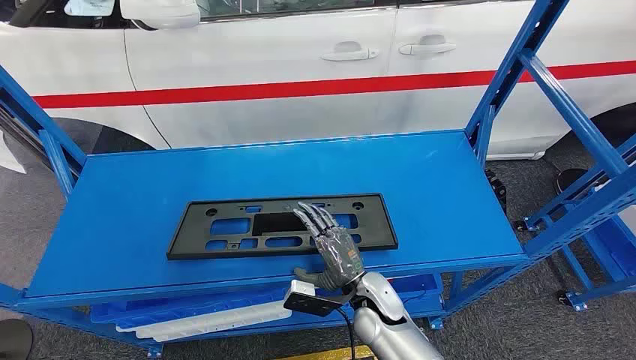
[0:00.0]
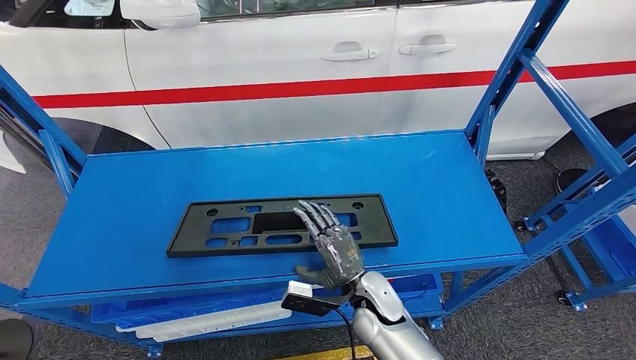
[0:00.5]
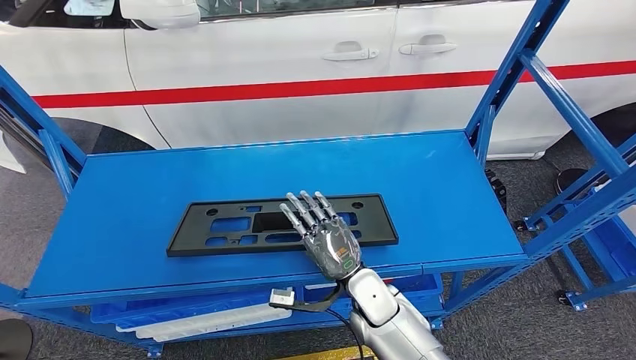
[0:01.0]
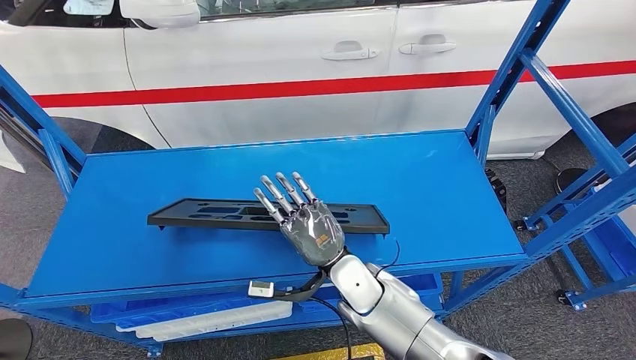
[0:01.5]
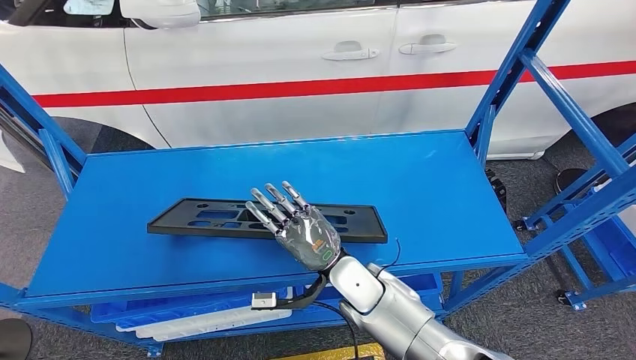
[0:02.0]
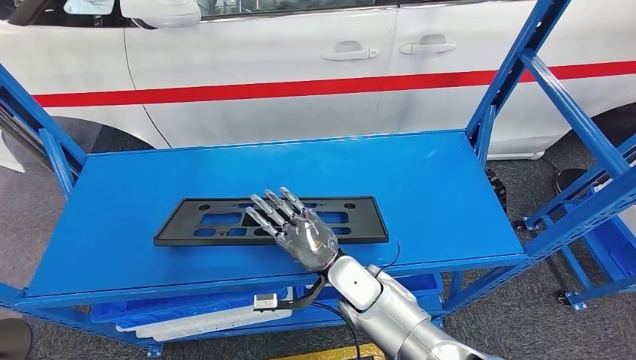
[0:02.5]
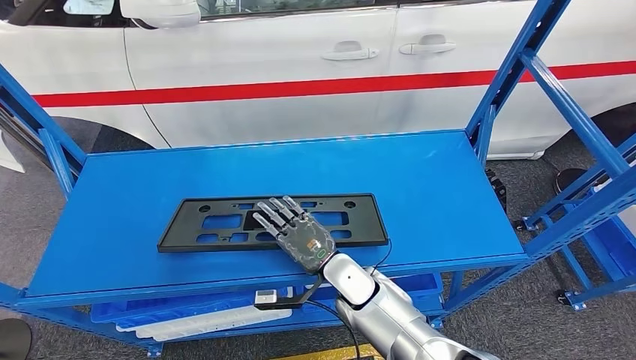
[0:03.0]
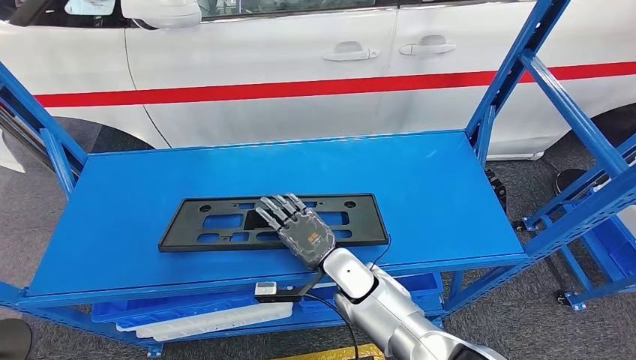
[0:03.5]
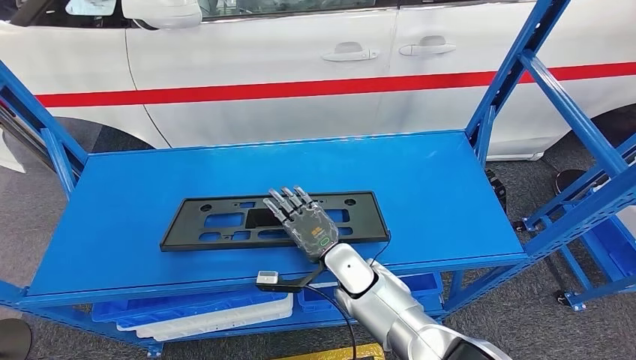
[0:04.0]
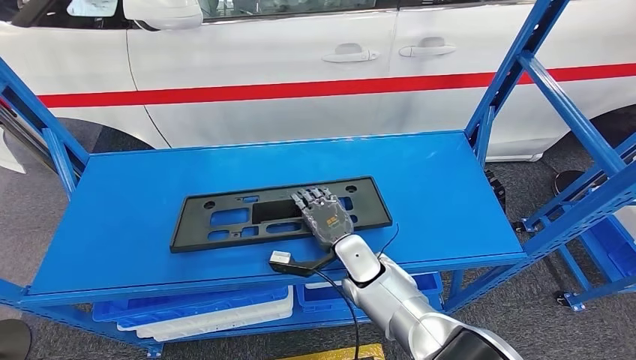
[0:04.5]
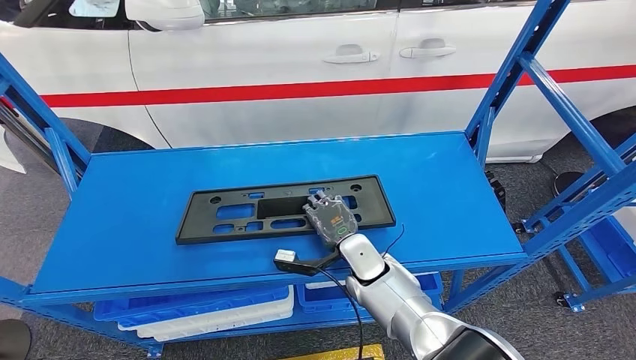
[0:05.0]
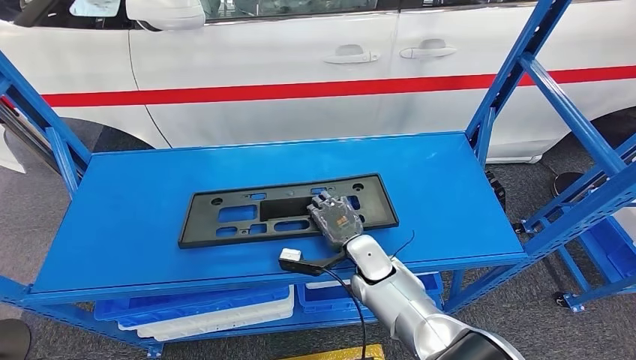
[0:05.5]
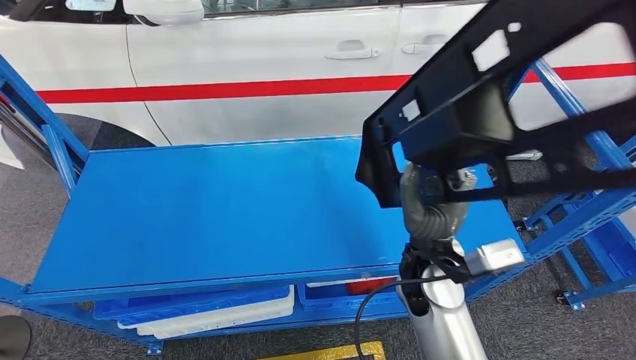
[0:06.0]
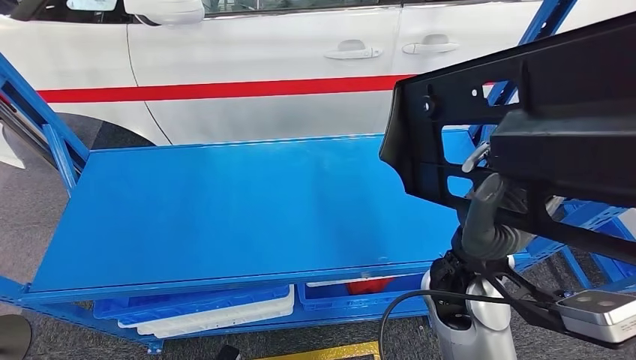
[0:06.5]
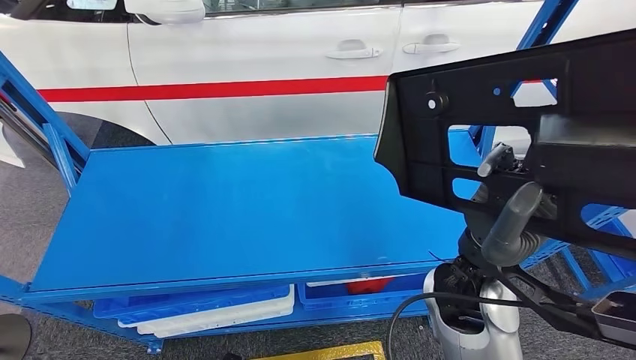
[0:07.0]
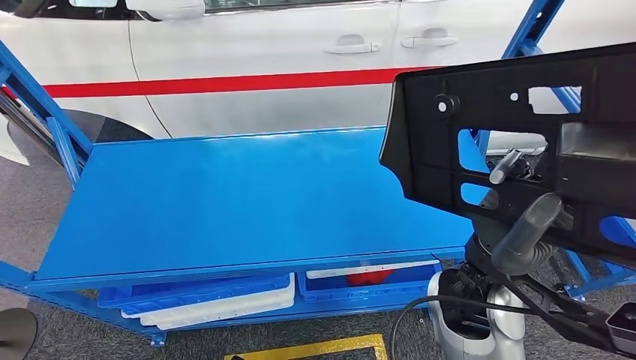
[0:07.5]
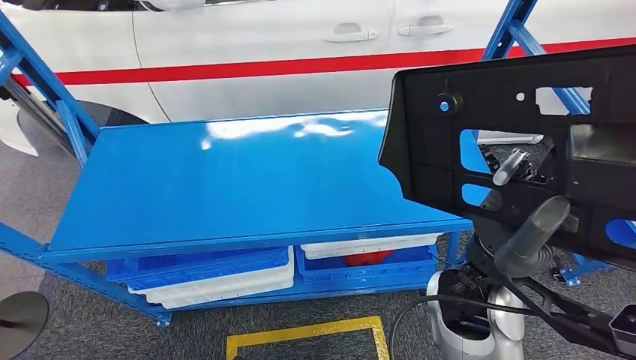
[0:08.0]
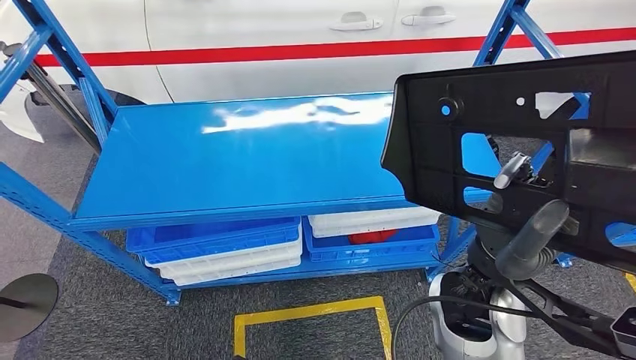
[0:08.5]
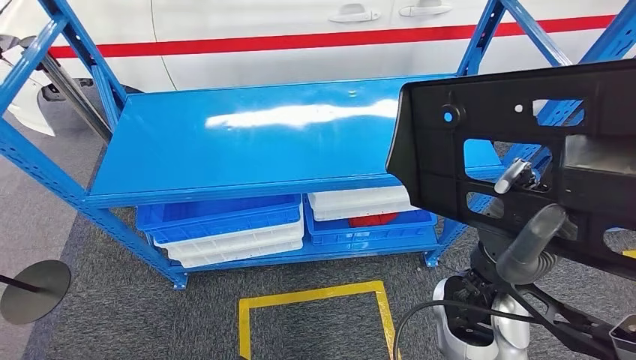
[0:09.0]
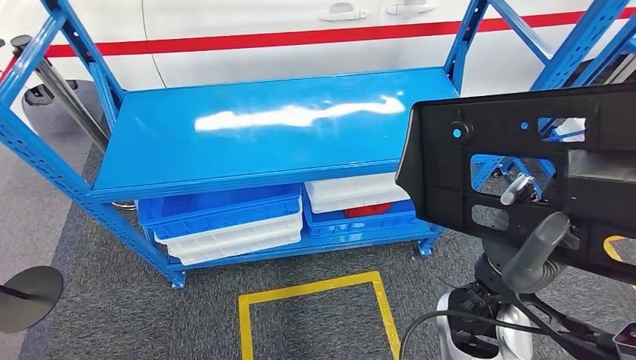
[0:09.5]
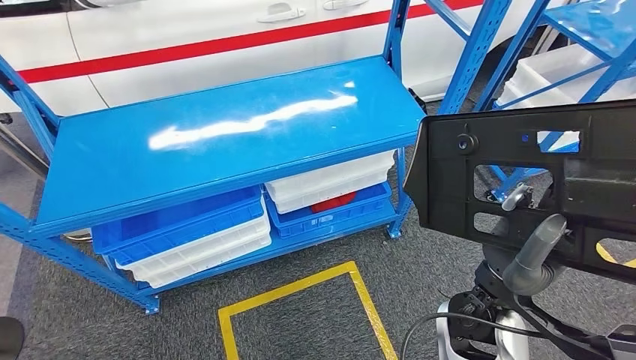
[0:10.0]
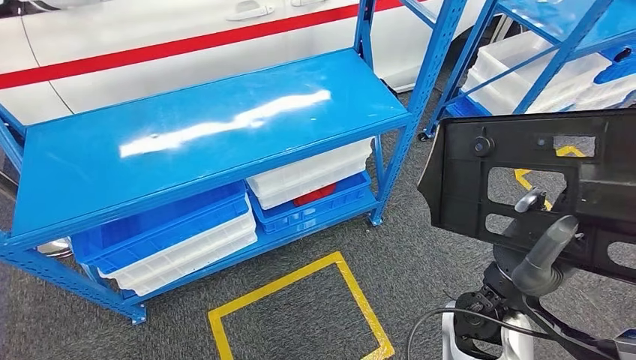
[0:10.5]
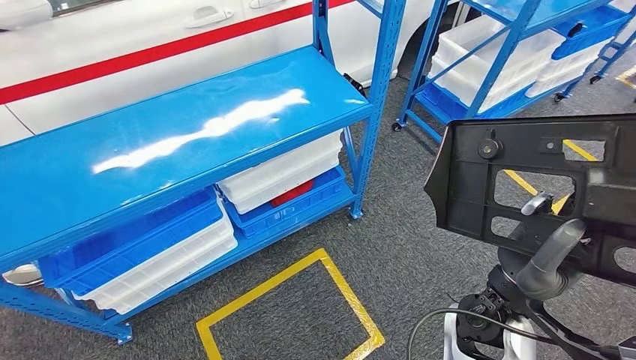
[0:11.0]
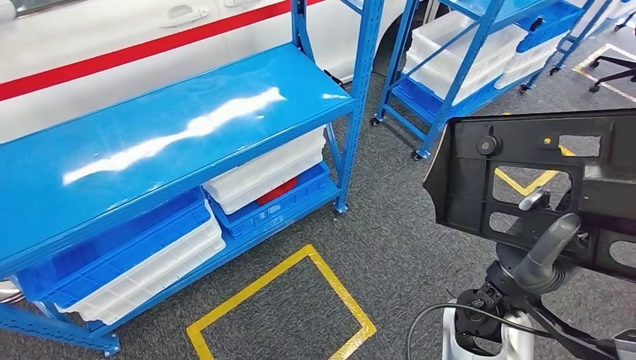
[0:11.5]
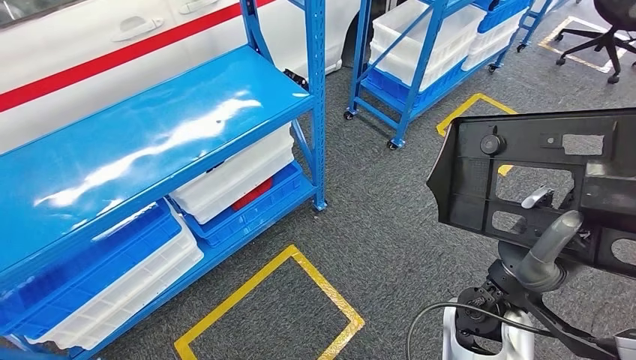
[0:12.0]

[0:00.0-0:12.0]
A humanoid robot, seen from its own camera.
Step, 0:00.0 to 0:05.5: Pick up the large material from the shelf.

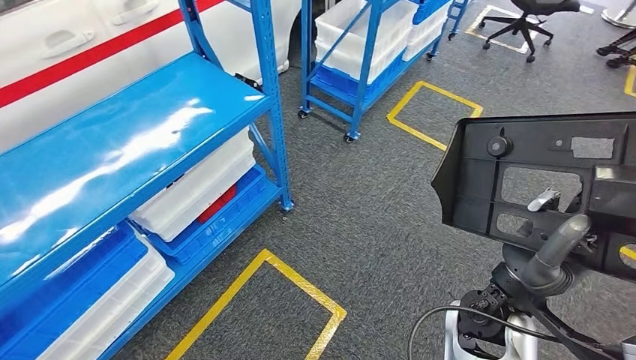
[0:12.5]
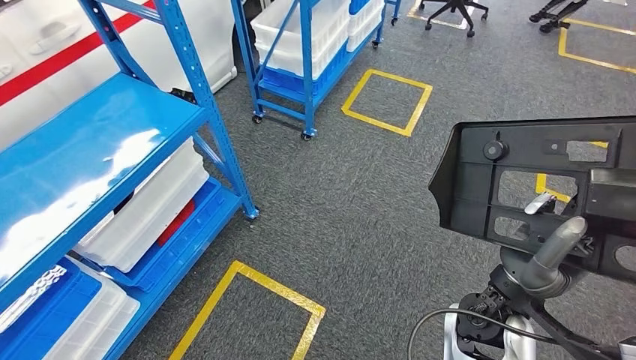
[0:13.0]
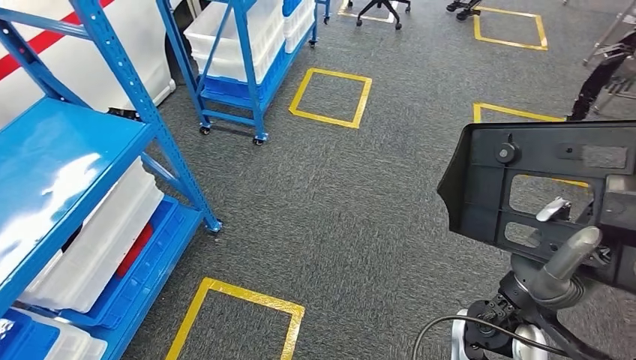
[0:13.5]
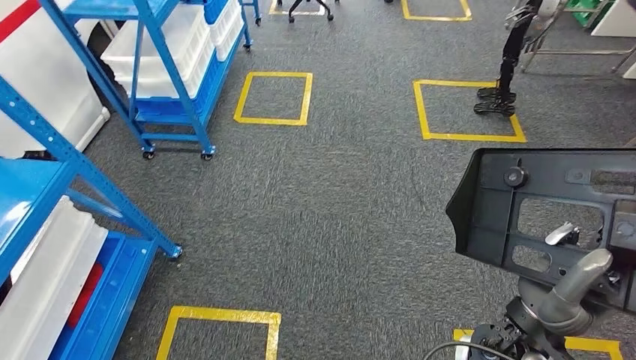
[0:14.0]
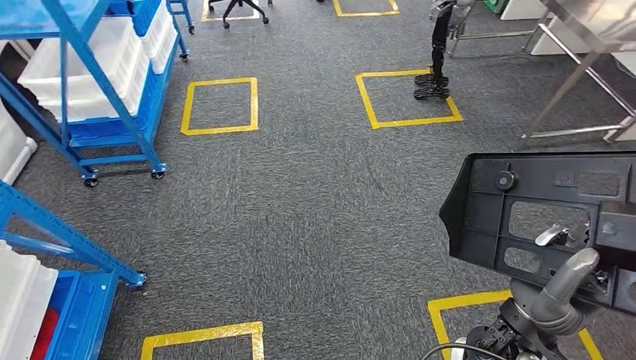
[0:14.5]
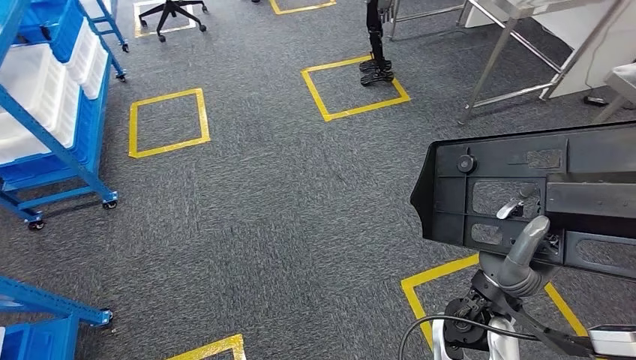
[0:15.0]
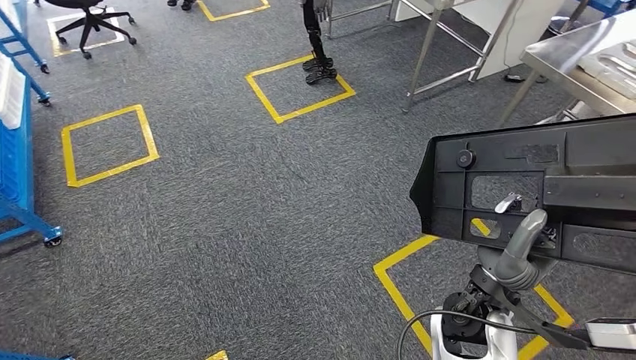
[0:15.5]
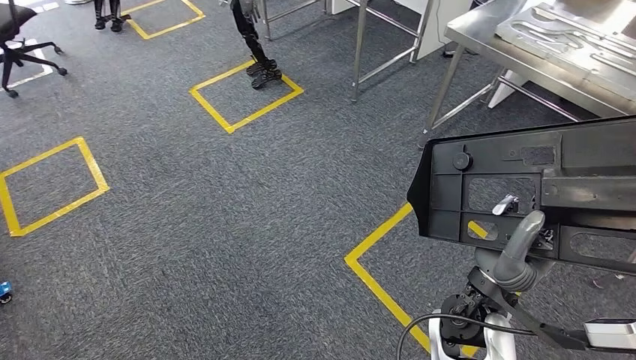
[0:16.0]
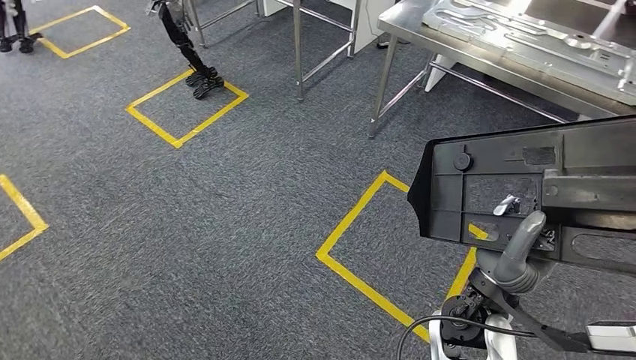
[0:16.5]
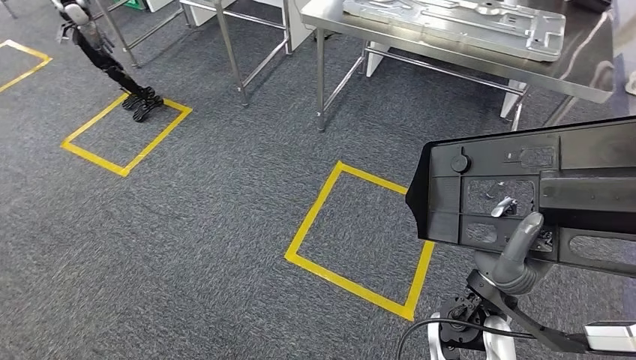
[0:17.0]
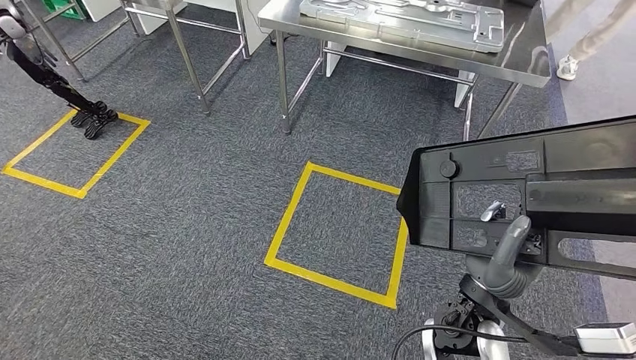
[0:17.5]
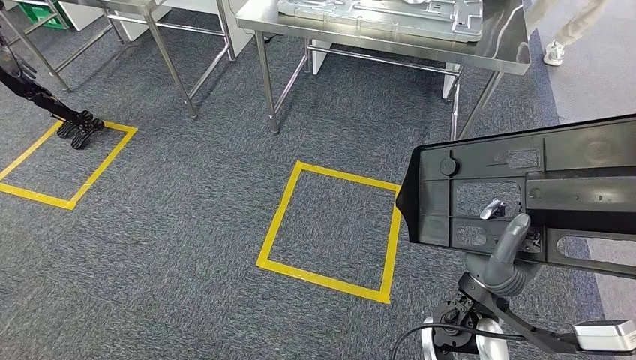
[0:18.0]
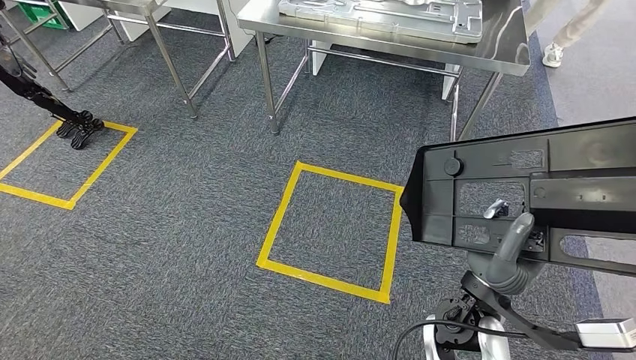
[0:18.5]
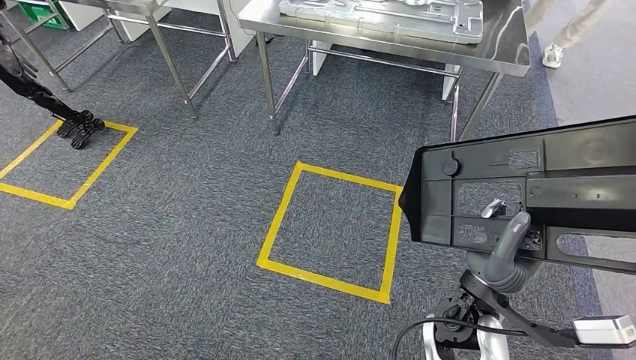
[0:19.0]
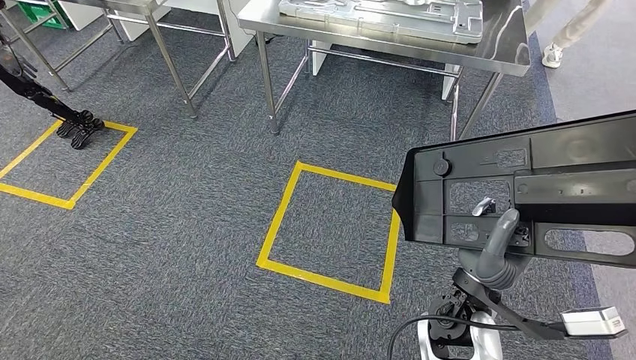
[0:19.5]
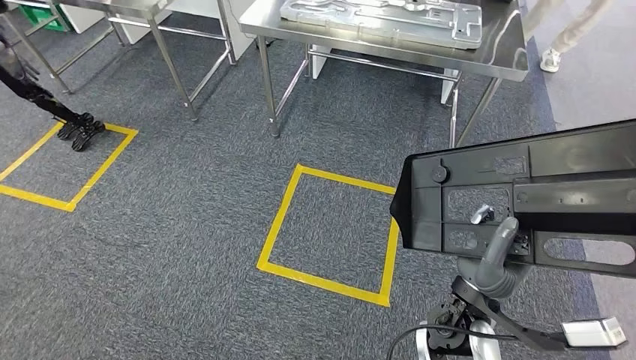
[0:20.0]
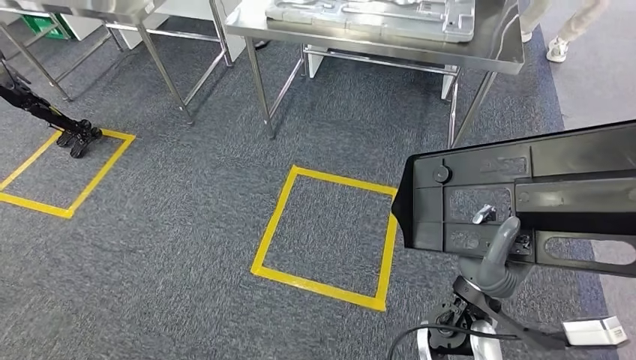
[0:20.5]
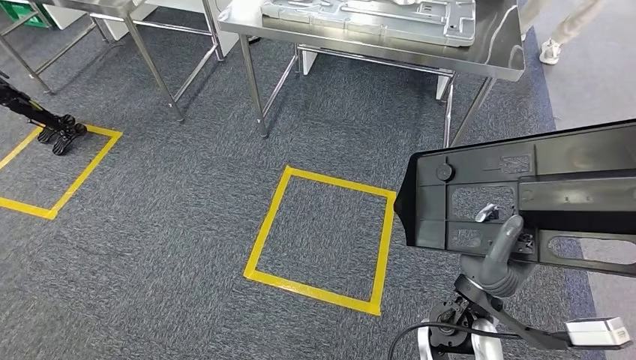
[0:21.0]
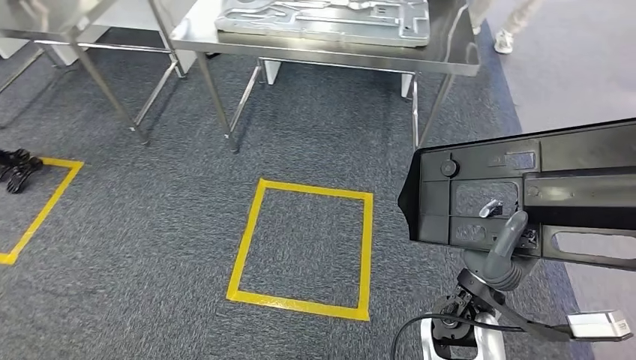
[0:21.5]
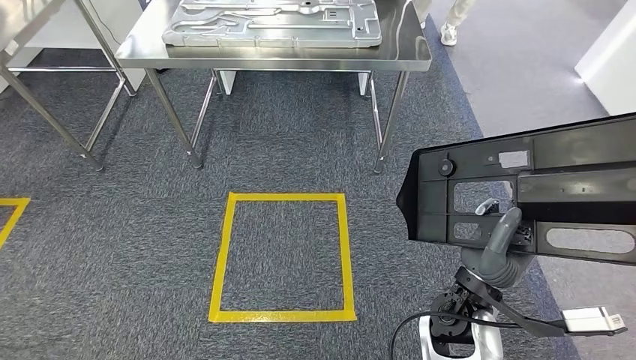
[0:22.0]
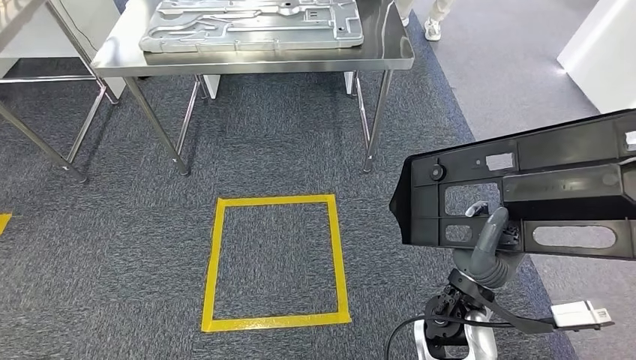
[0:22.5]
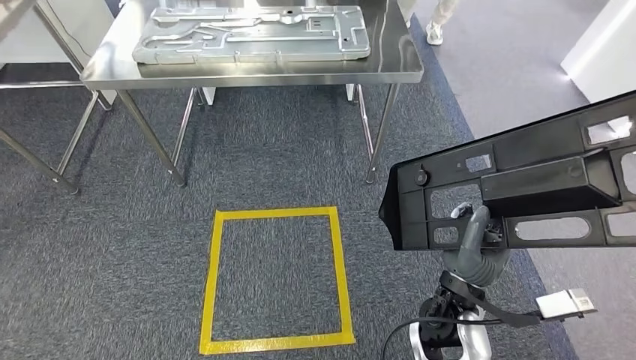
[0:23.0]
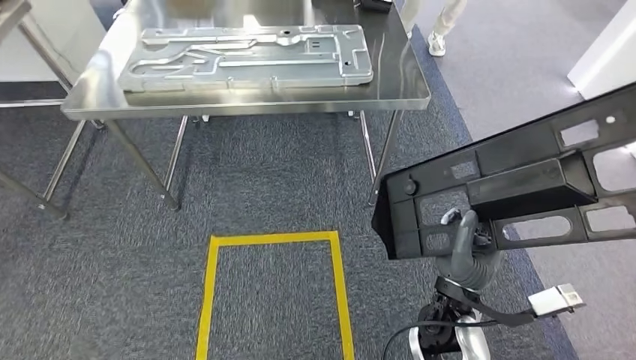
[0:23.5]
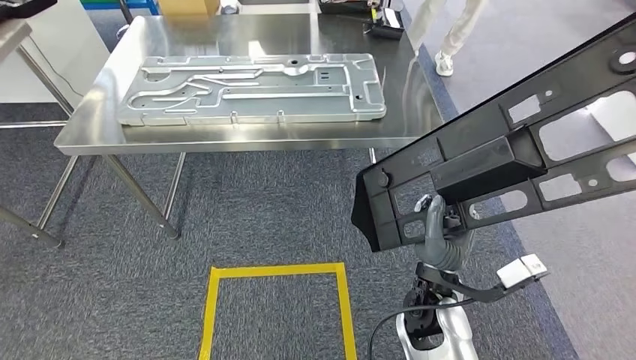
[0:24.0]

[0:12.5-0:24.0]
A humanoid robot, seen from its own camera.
0:18.5 to 0:20.0: The two hands keep their place.
